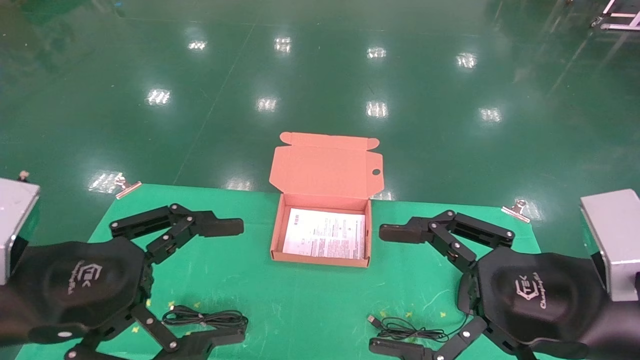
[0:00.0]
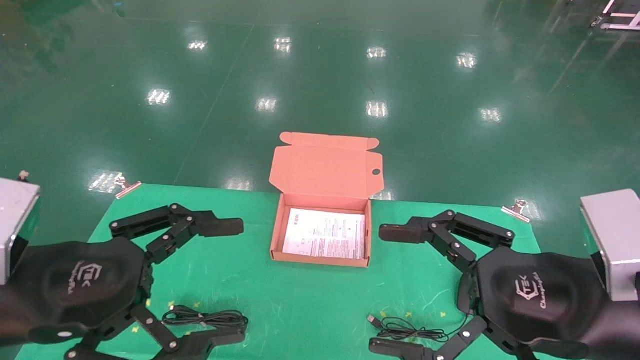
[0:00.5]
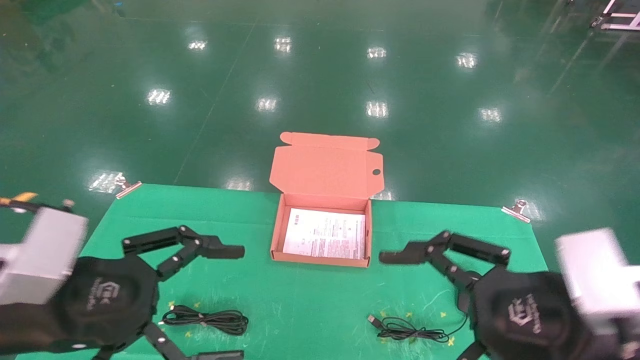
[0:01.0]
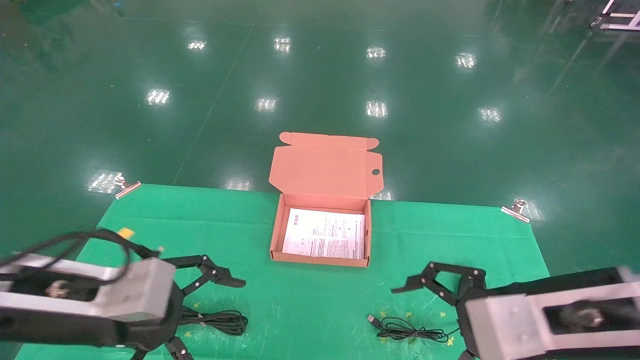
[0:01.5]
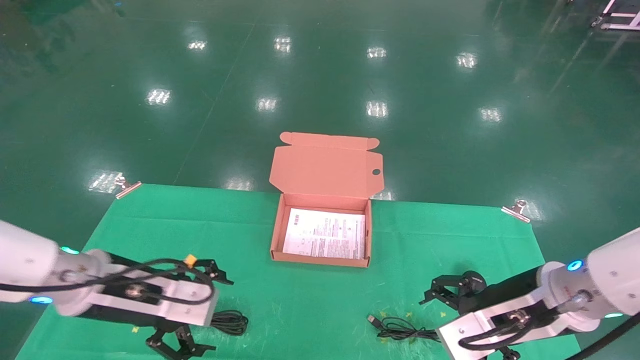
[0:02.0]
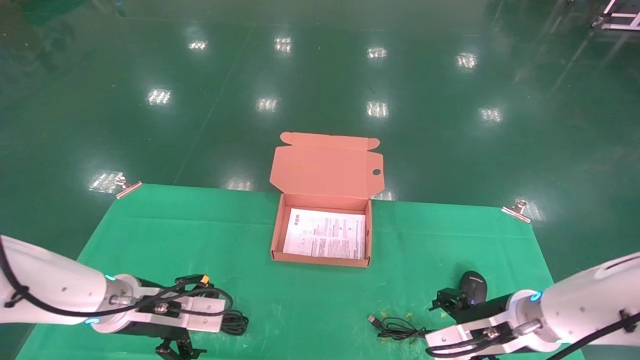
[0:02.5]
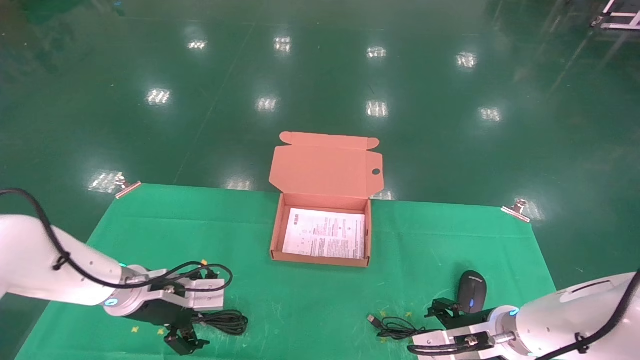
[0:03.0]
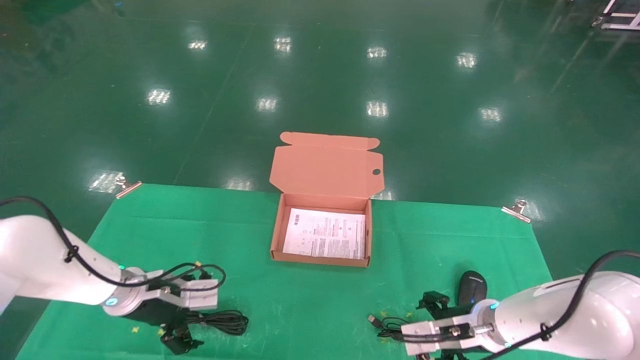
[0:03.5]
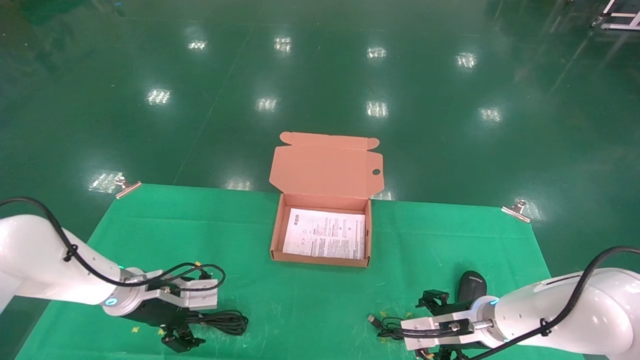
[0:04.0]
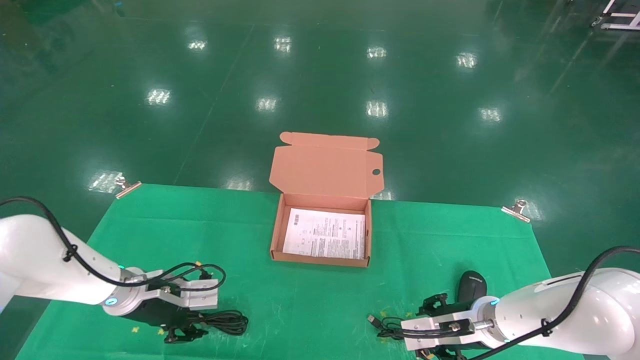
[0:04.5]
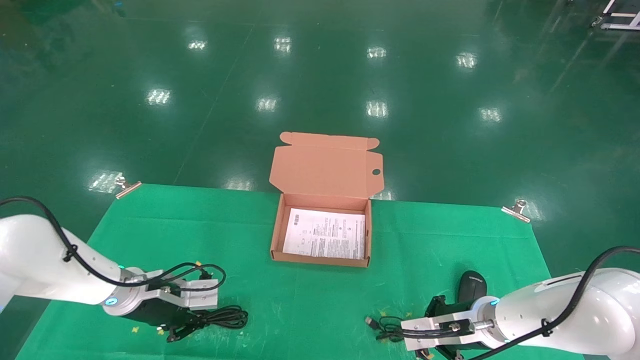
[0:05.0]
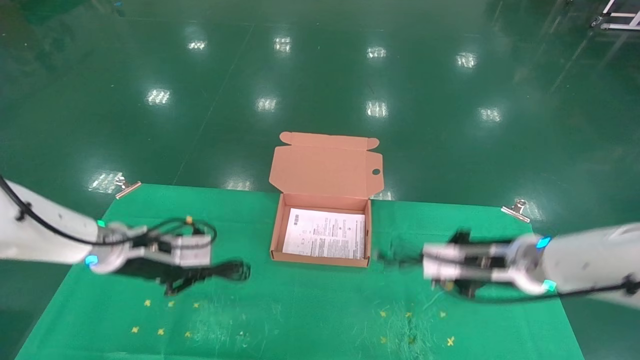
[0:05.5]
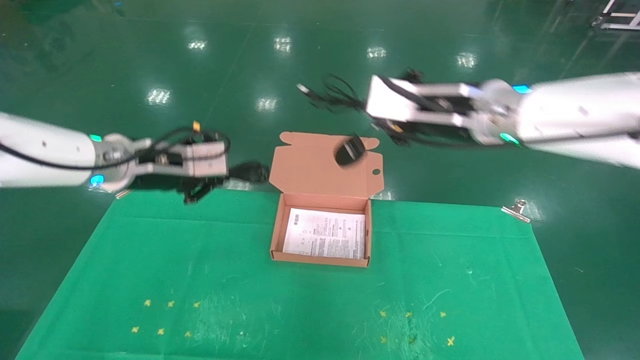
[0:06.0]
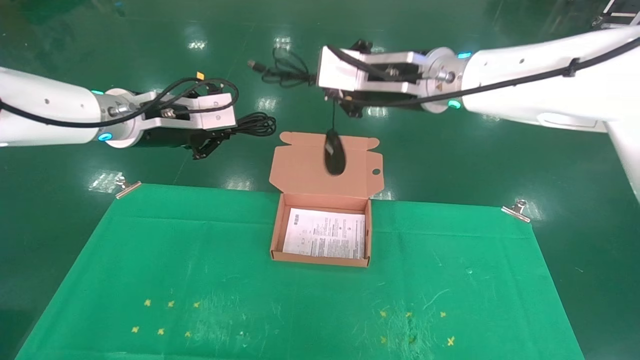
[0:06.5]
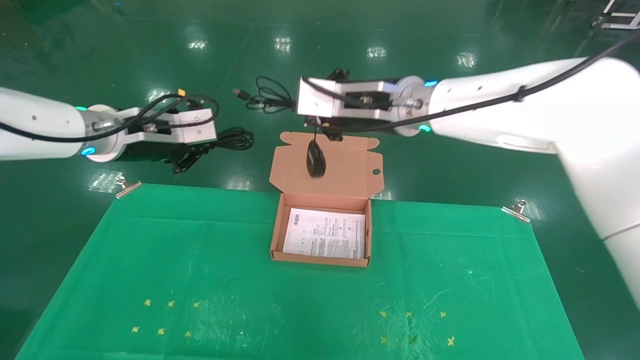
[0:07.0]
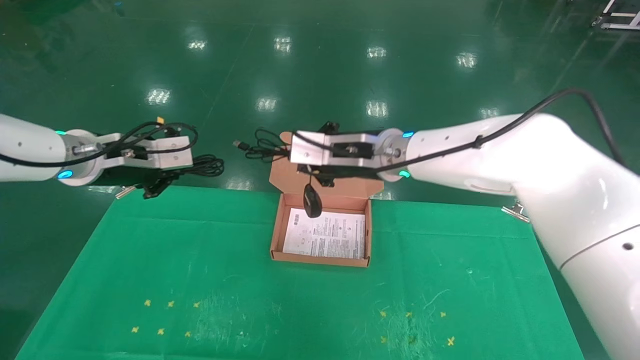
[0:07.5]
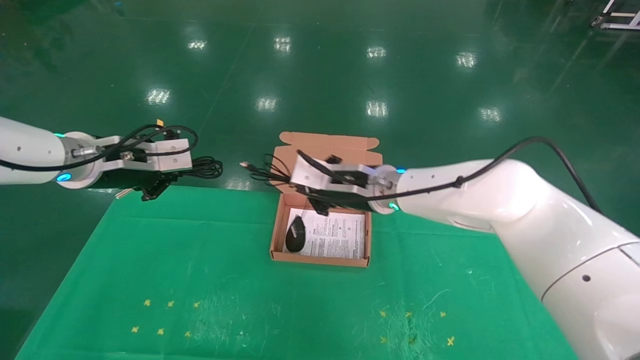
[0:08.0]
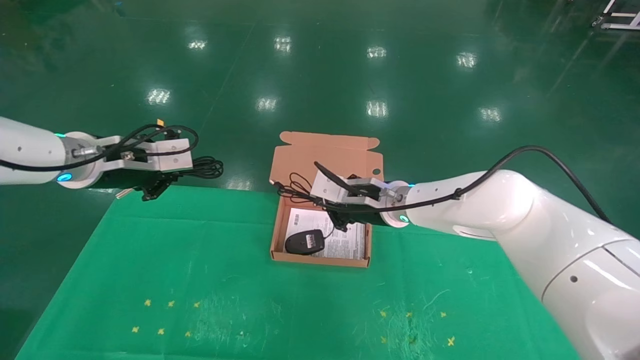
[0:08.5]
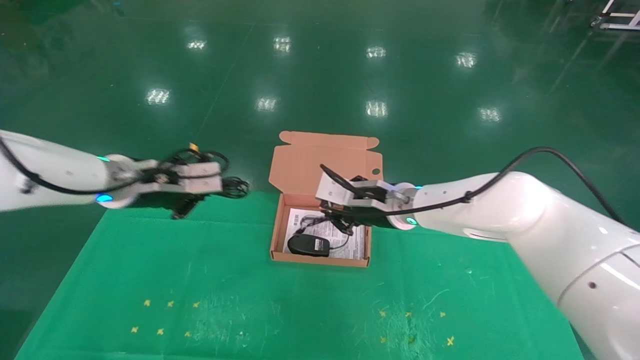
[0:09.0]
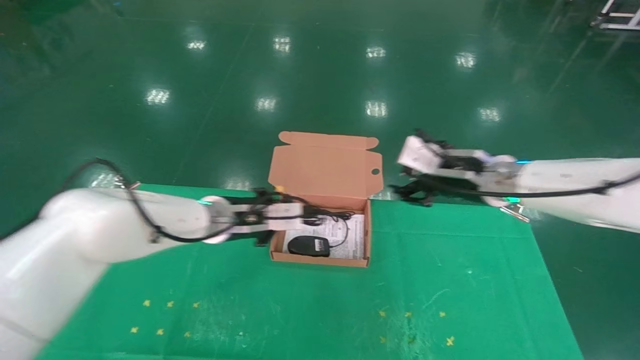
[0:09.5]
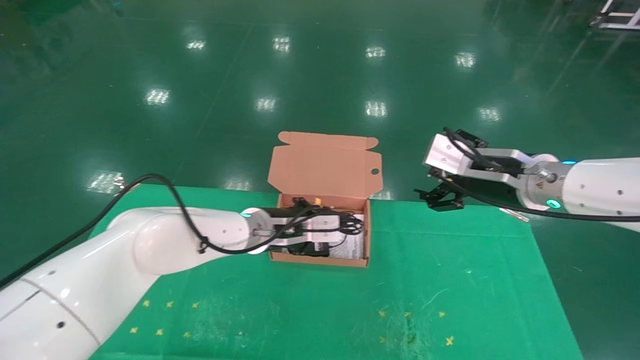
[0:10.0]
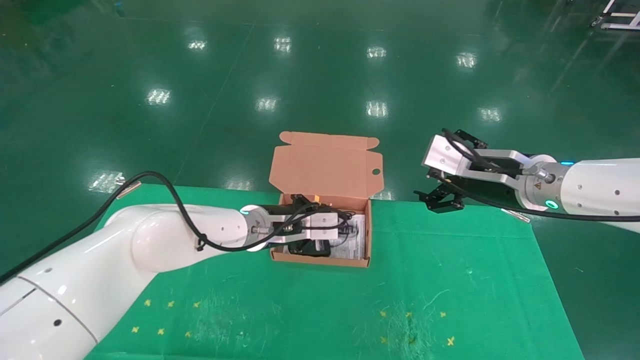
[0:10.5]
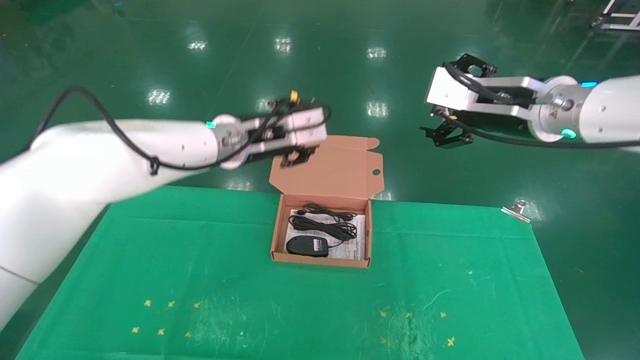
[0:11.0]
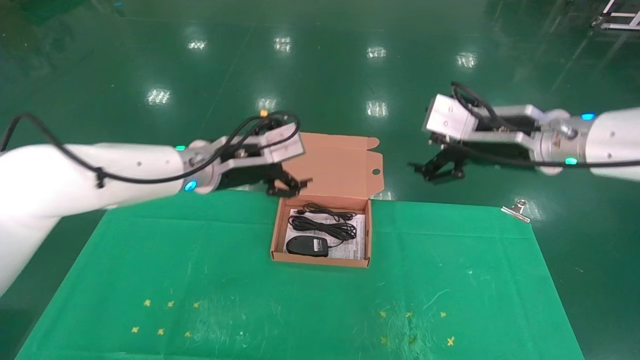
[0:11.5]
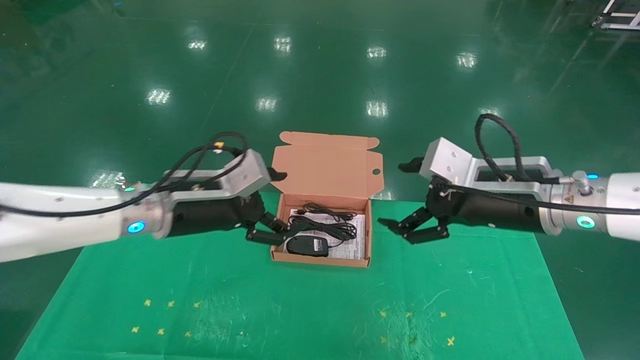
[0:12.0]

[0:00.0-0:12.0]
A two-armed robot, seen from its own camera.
Task of the whole recording: grasp data cable left put into box grasp mouse right put into box.
Step, 0:01.0 to 0:05.0: Grab and pick up both the mouse and power cord from the accessory packaging area at the same time.
Step, 0:05.5 to 0:10.5: Place the mouse and power cord into the box.
0:00.0 to 0:02.0: Both grippers travel together forward and downward, some 15 cm.
0:02.0 to 0:04.0: The left gripper goes approximately 15 cm forward and downward. Meanwhile the right gripper heads downward and forward, covering some 15 cm.
0:04.0 to 0:06.0: Both grippers travel together upward, some 25 cm. The left gripper closes. The right gripper closes up.
0:06.0 to 0:08.0: The right gripper moves downward, to the left and forward, about 15 cm.
0:08.0 to 0:10.0: The right gripper goes some 20 cm to the right and backward, and opens; the left gripper travels to the right and downward by roughly 25 cm.
0:10.0 to 0:12.0: The left gripper is displaced to the left, backward and upward by roughly 15 cm, and opens. Meanwhile the right gripper travels backward by some 5 cm, and goes upward and returns, some 10 cm each way.
